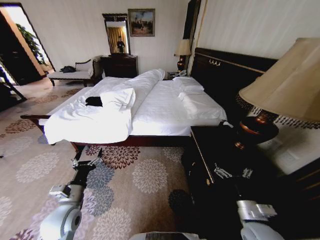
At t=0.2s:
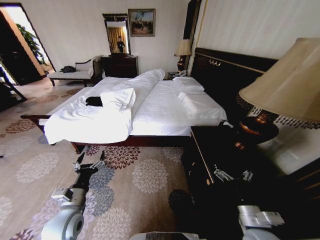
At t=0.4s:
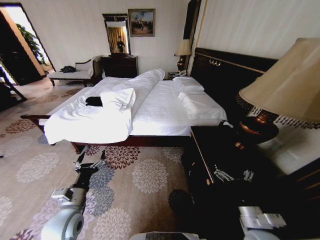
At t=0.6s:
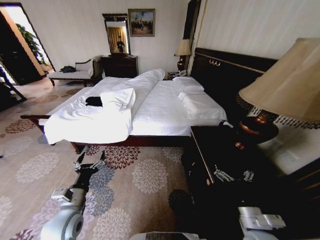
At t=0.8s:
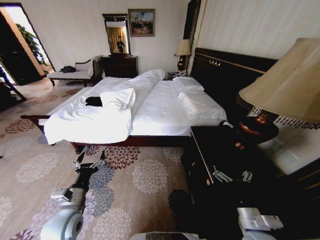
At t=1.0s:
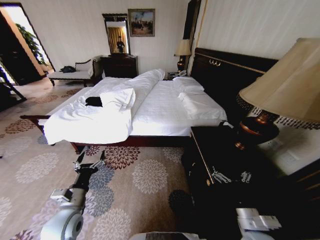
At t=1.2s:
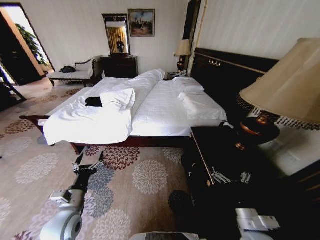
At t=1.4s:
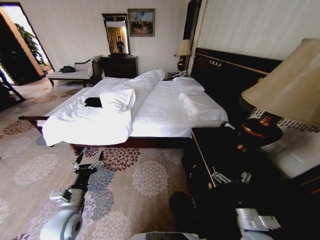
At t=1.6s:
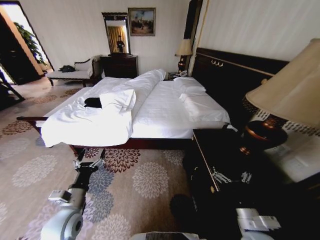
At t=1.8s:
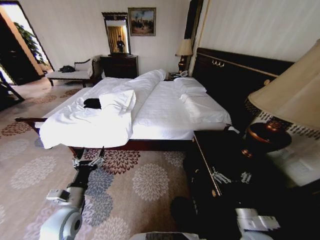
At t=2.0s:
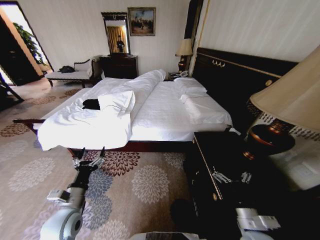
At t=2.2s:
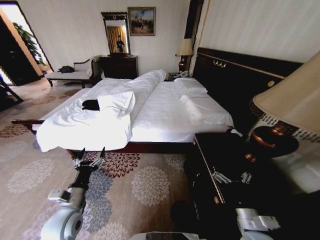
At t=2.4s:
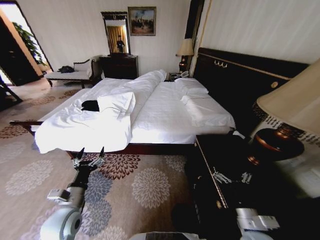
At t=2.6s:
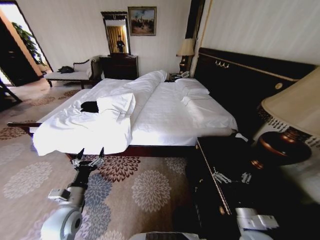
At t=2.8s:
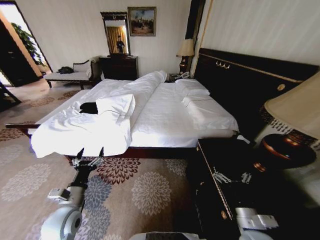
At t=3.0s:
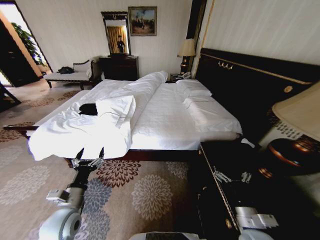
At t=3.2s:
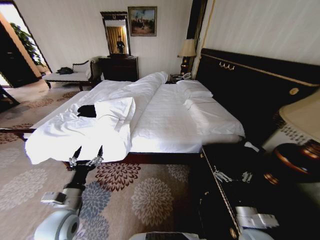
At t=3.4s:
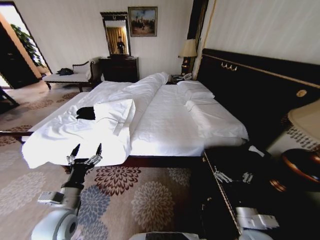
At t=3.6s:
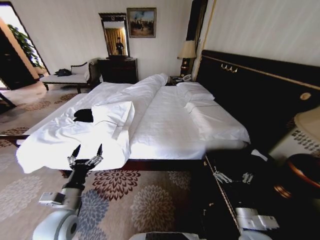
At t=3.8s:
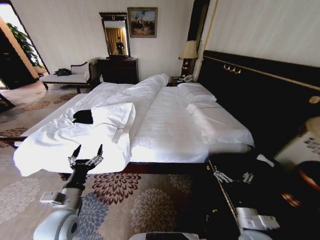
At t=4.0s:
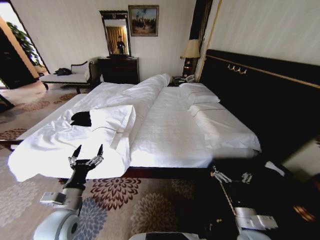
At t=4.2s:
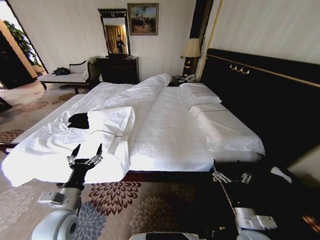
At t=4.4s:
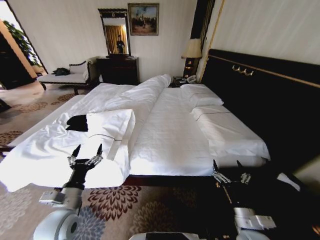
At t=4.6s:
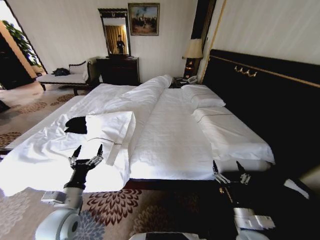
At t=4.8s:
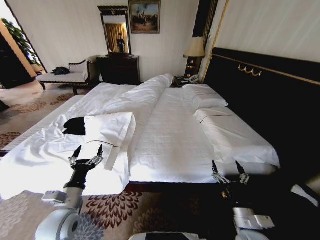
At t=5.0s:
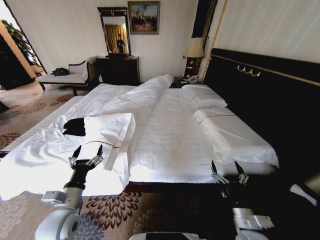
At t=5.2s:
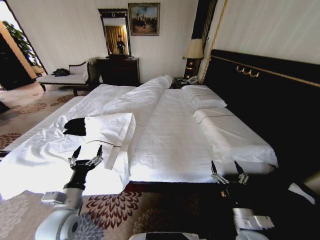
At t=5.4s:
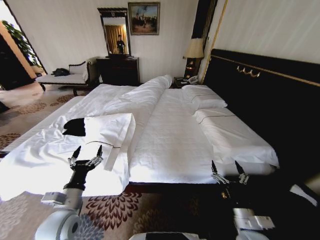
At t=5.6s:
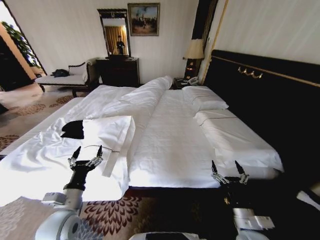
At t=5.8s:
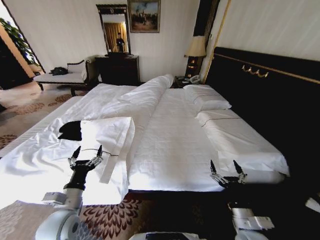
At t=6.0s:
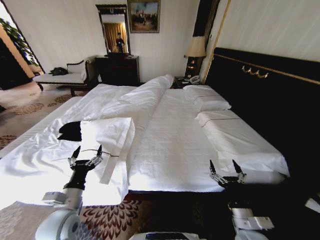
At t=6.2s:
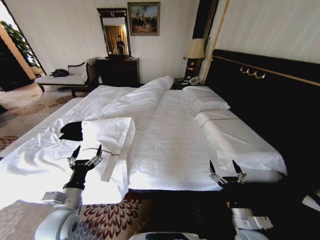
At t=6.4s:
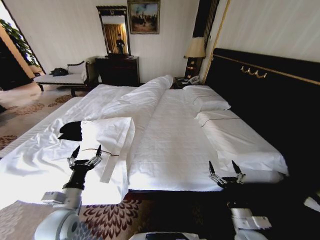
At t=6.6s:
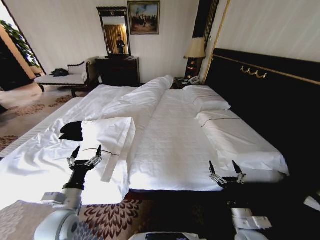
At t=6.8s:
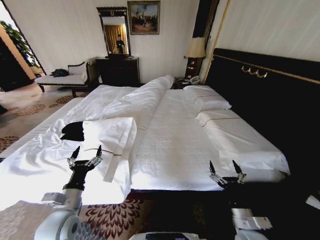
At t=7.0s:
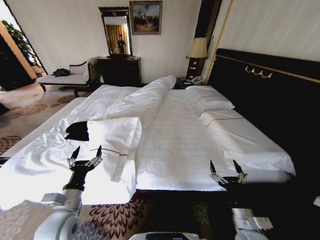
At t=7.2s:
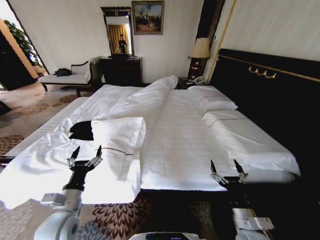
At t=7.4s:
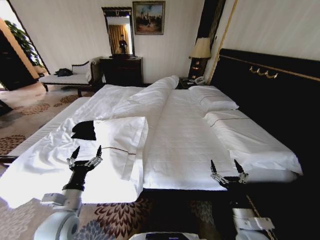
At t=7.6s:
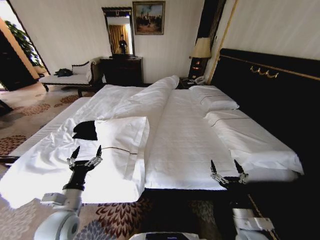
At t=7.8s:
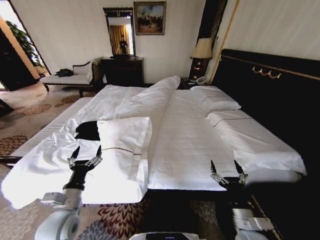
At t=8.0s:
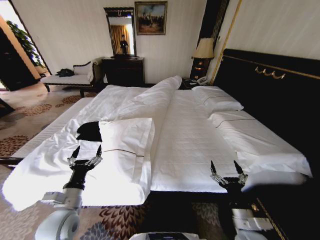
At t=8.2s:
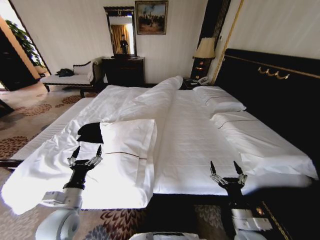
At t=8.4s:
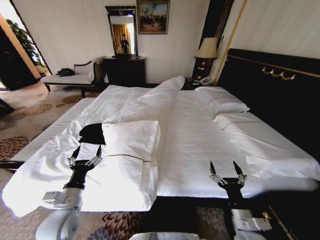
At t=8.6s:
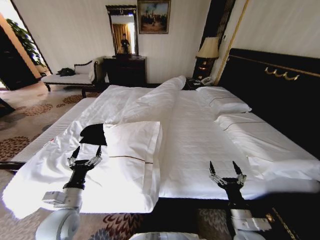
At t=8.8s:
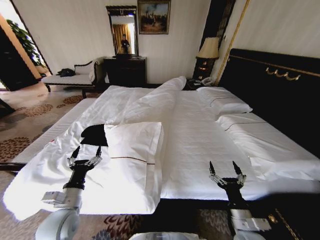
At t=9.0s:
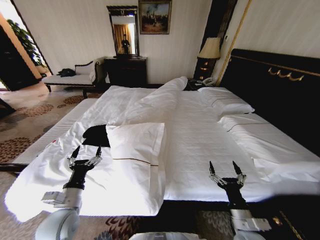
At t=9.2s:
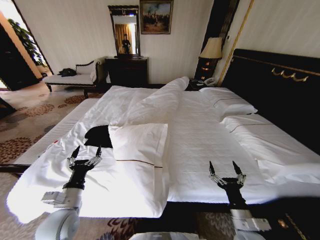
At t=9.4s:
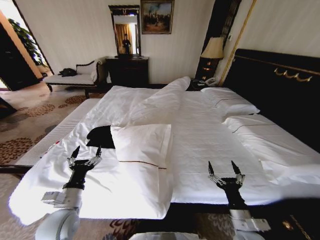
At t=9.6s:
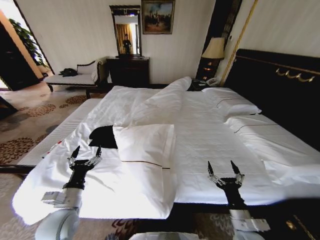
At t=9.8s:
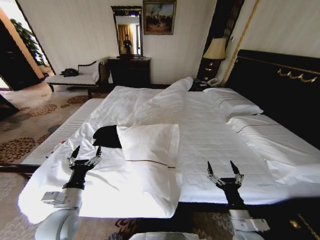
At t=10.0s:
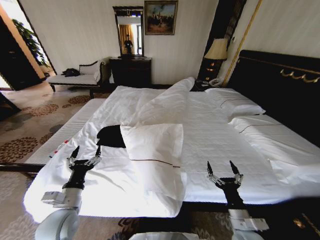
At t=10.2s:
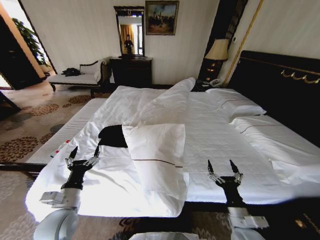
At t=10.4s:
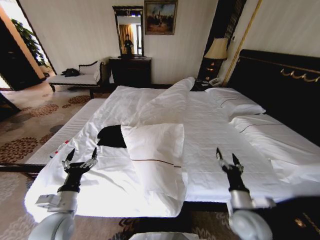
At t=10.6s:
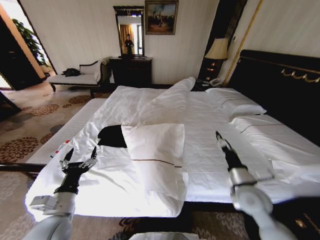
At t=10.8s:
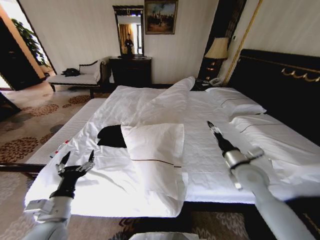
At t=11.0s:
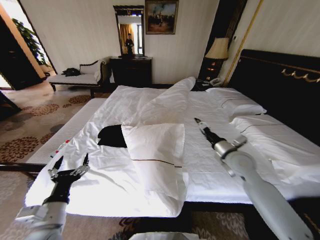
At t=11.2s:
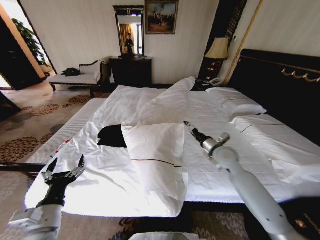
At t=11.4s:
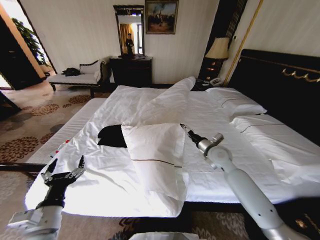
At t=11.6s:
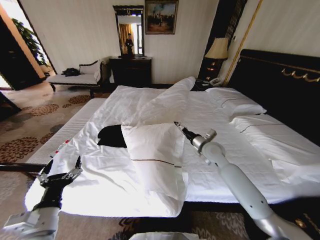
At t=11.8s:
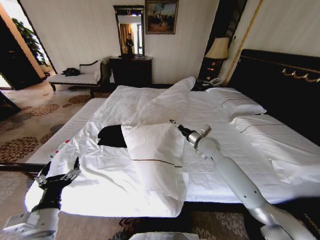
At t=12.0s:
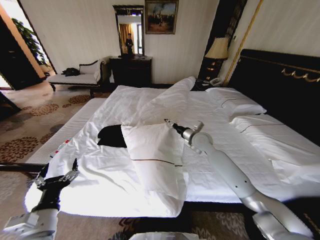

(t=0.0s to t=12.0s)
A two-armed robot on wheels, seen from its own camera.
Task of the whole recording: Fold the clothes on the bed.
t=10.4s - t=12.0s: The left gripper is displaced backward by approximately 5 cm, while the right gripper heads forward, covering about 30 cm.

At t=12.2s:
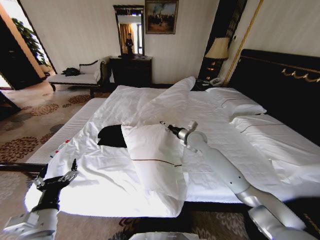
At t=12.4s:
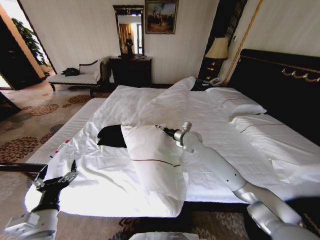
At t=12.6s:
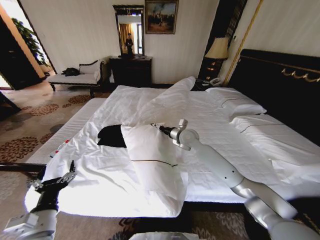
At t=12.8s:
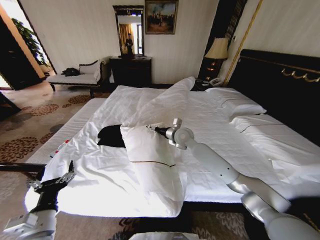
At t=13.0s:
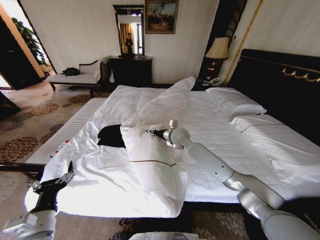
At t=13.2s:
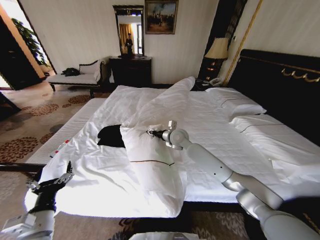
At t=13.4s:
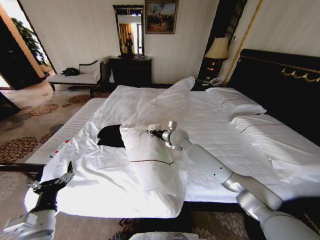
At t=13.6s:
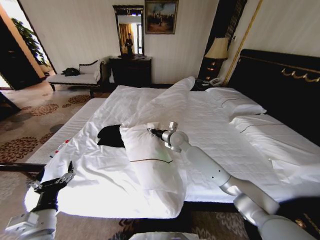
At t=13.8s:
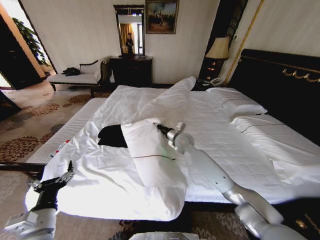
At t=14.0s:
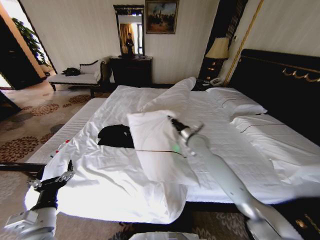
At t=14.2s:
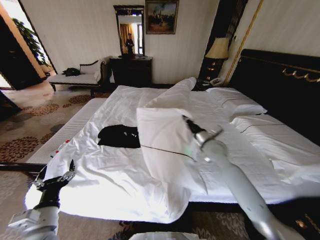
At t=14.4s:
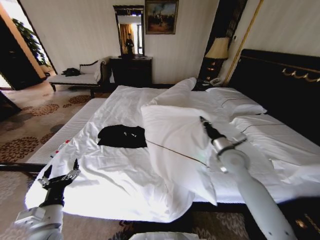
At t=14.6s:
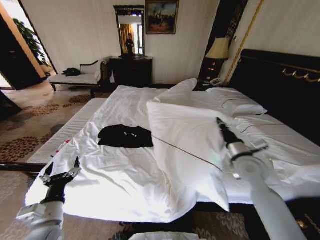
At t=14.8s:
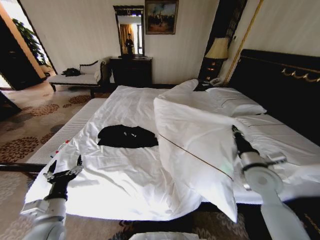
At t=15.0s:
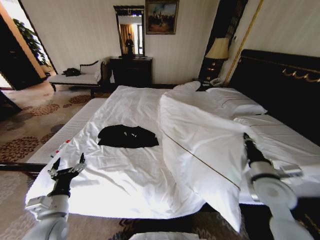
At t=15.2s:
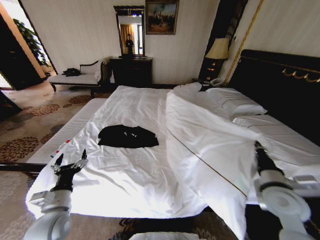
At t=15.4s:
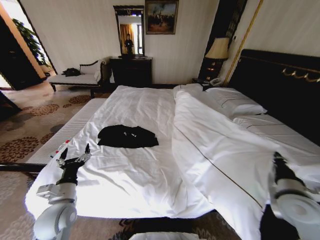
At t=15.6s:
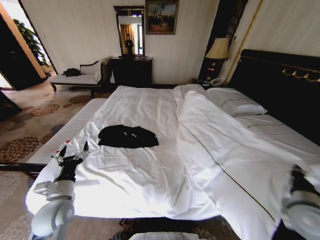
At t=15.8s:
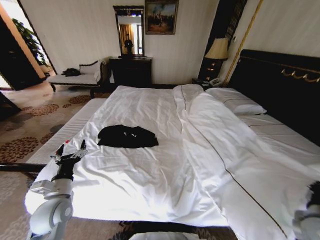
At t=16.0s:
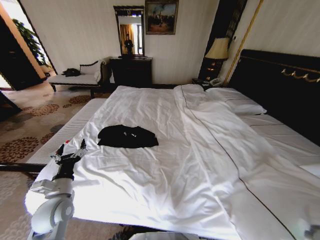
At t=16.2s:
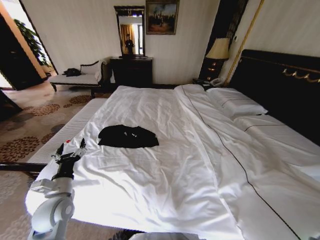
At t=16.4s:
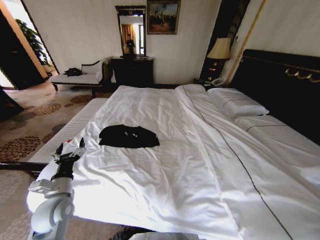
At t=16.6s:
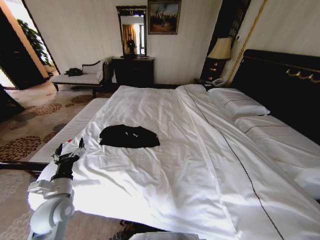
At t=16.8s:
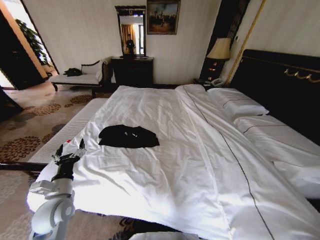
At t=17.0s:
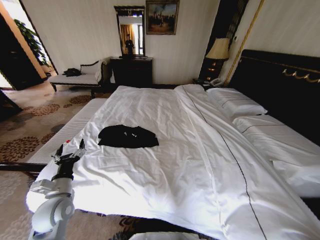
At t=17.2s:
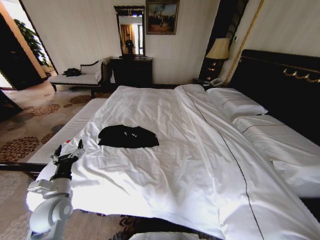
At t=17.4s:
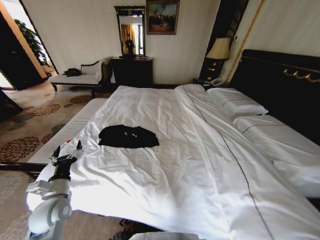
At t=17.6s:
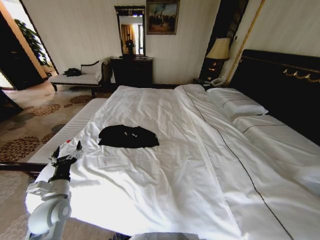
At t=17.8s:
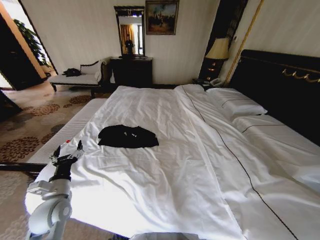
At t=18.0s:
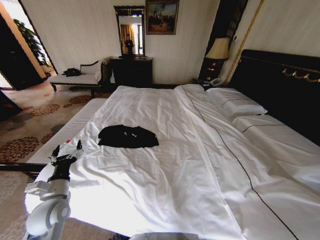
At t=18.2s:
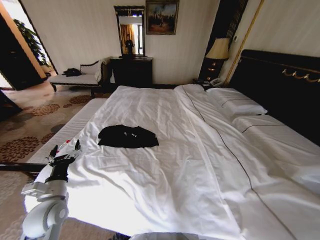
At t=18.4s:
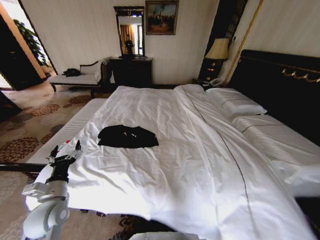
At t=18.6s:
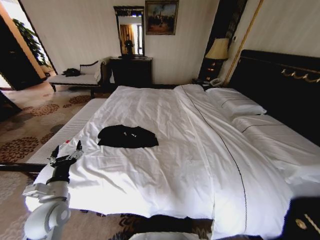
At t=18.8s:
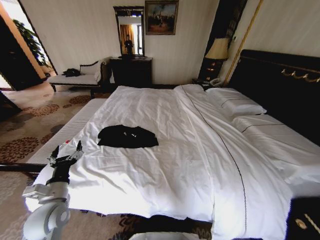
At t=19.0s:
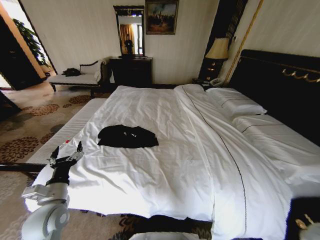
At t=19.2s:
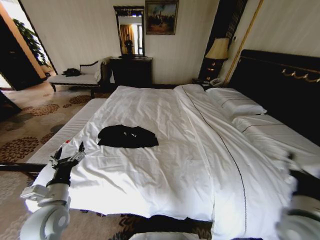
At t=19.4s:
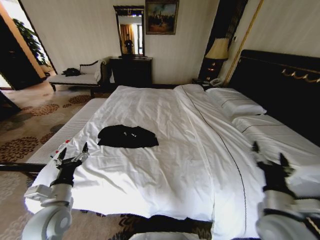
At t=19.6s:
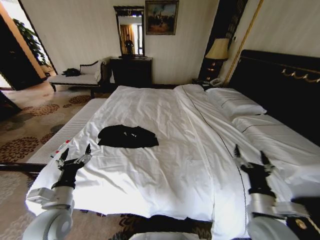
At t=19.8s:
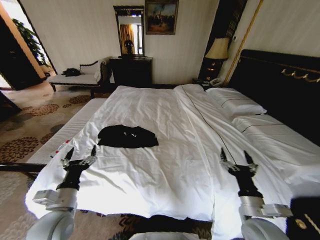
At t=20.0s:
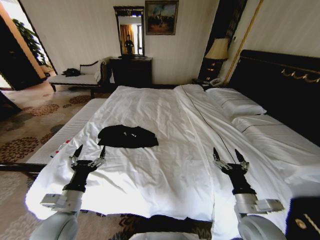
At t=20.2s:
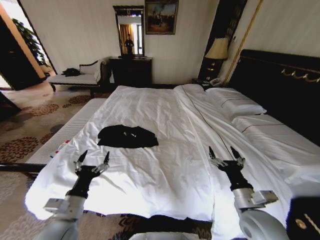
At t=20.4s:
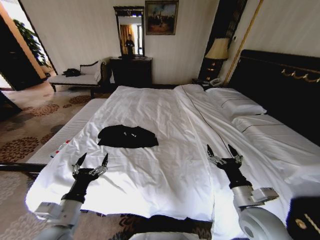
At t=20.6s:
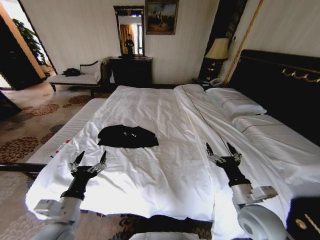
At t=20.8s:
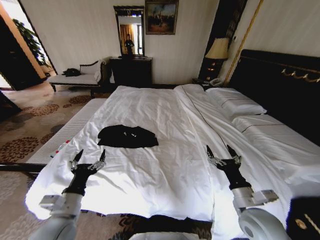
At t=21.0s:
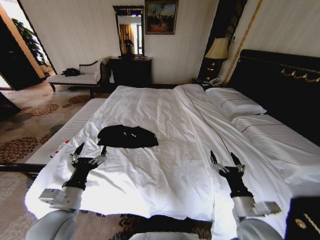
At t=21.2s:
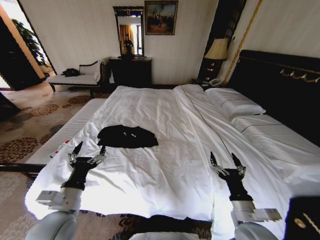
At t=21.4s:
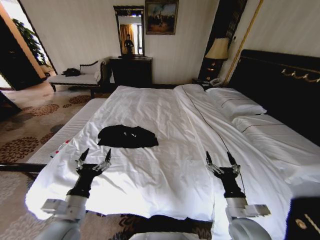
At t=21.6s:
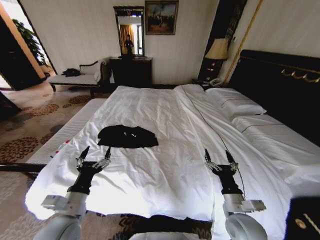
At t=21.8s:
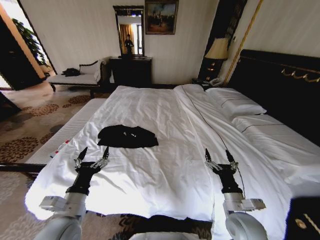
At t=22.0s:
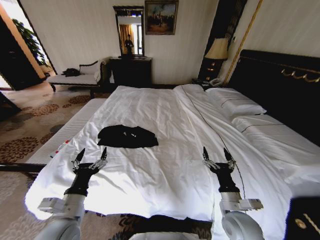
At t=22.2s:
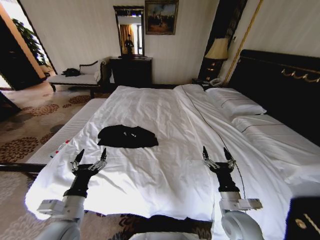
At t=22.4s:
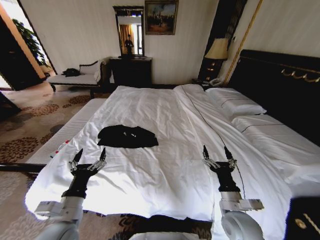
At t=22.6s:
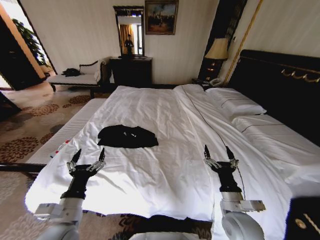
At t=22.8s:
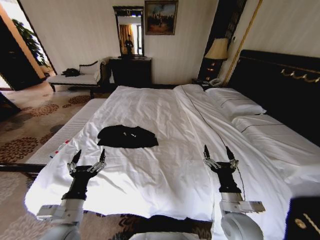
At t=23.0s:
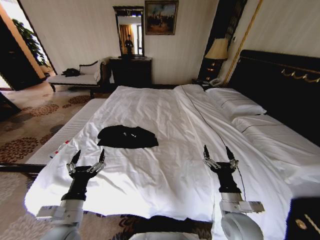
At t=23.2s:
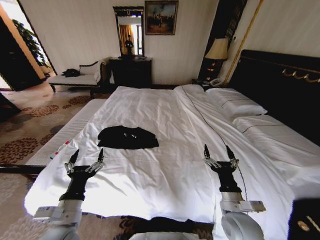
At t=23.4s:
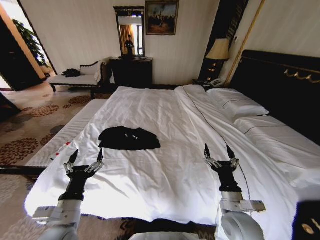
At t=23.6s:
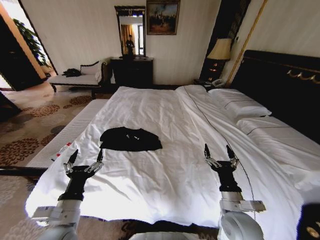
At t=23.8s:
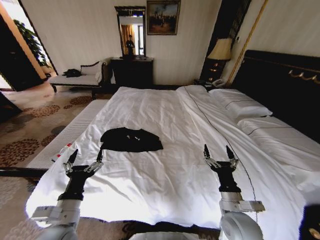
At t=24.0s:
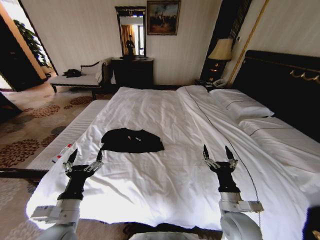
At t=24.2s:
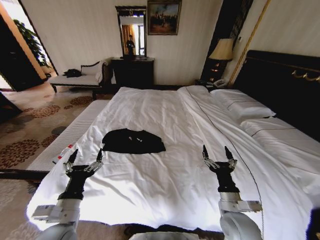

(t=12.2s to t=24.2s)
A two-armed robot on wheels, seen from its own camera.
Task of the whole recording: Fold the clothes on the bed.
t=12.2s - t=13.8s: The right gripper is displaced to the left by roughly 5 cm, and closes its fingers.
t=13.8s - t=15.2s: The right gripper is displaced backward and to the right by some 35 cm, while the left gripper moves forward, about 5 cm.
t=15.2s - t=16.6s: The right gripper goes some 20 cm backward, to the right and downward.
t=16.6s - t=18.2s: The right gripper moves upward, roughly 10 cm, and opens its fingers.
t=18.2s - t=19.8s: The left gripper moves approximately 5 cm. Meanwhile the right gripper is displaced to the left by approximately 20 cm.
t=19.8s - t=22.6s: The grippers make only small movements.
